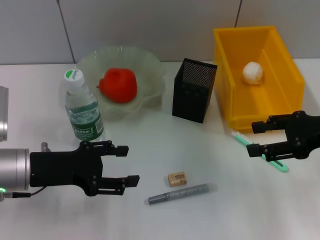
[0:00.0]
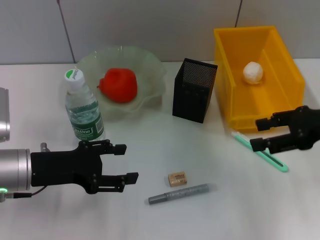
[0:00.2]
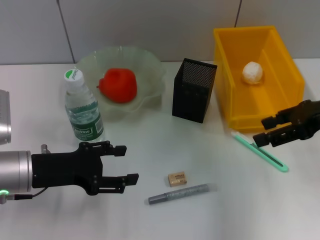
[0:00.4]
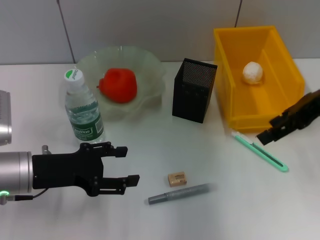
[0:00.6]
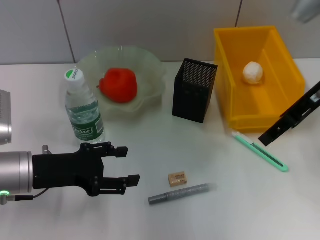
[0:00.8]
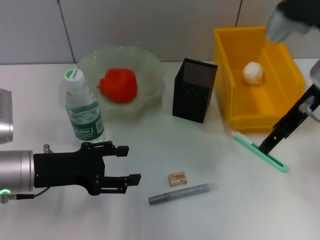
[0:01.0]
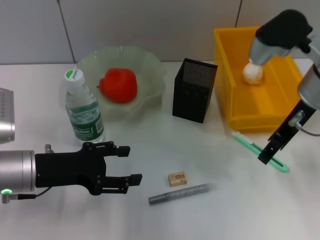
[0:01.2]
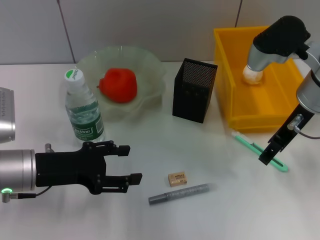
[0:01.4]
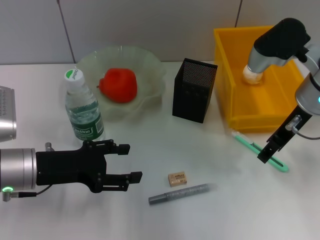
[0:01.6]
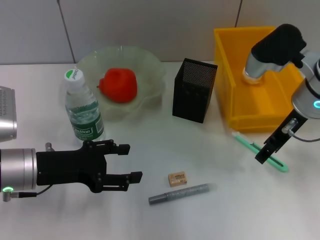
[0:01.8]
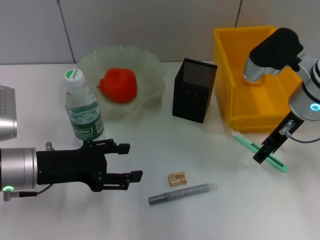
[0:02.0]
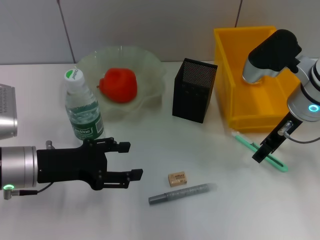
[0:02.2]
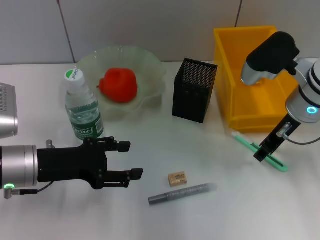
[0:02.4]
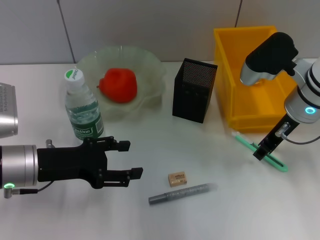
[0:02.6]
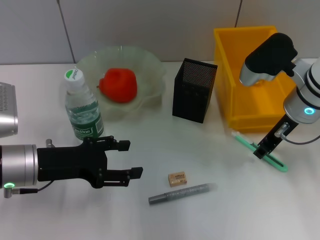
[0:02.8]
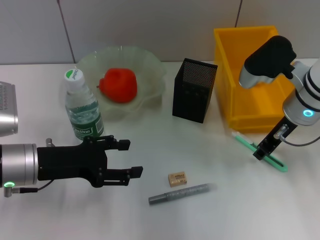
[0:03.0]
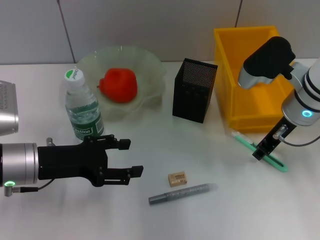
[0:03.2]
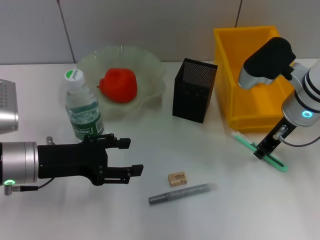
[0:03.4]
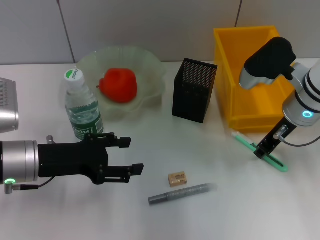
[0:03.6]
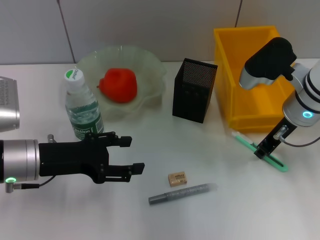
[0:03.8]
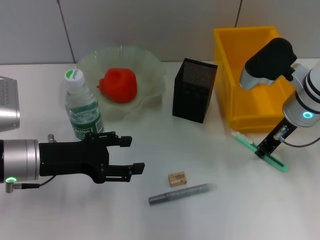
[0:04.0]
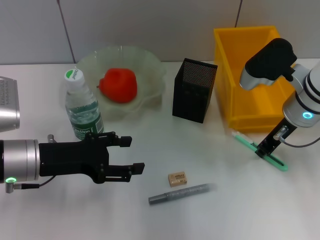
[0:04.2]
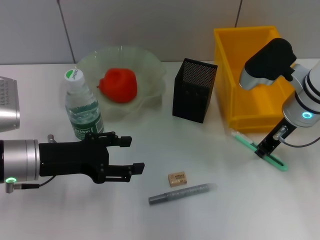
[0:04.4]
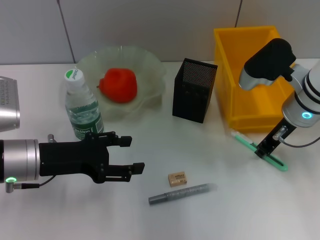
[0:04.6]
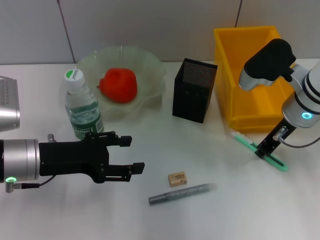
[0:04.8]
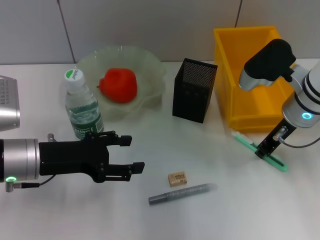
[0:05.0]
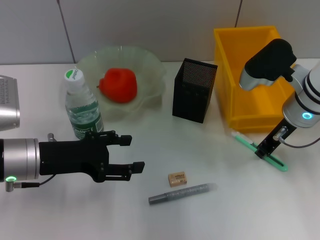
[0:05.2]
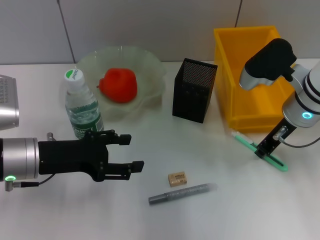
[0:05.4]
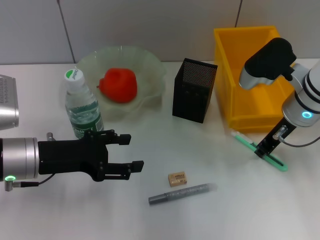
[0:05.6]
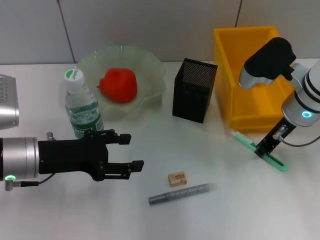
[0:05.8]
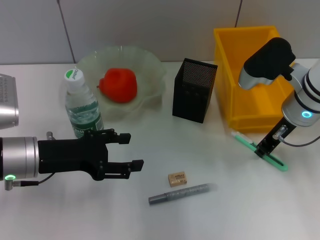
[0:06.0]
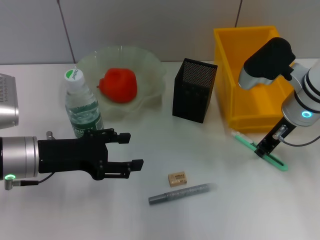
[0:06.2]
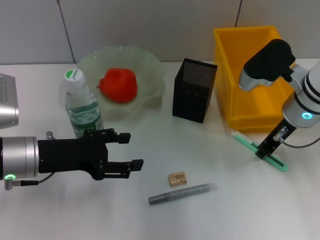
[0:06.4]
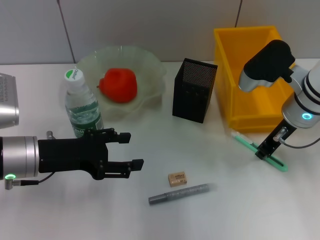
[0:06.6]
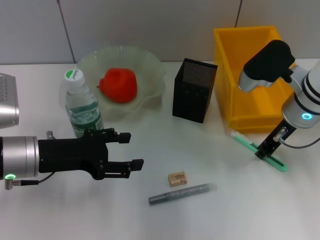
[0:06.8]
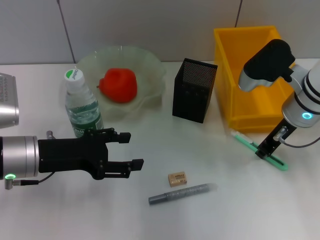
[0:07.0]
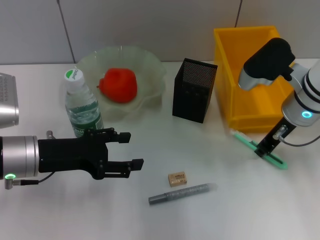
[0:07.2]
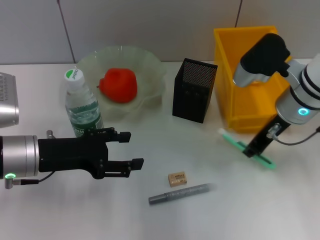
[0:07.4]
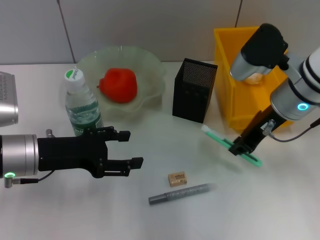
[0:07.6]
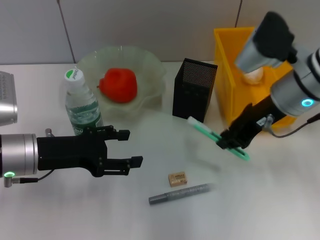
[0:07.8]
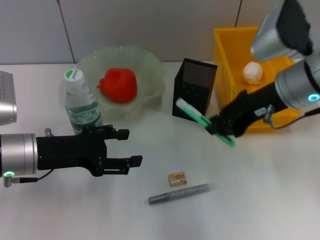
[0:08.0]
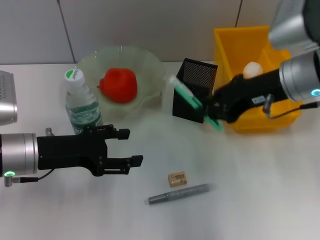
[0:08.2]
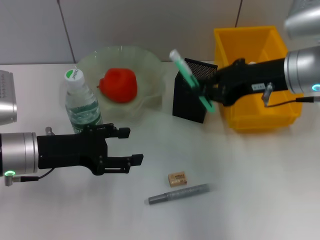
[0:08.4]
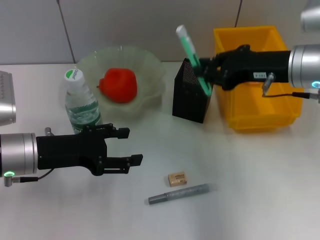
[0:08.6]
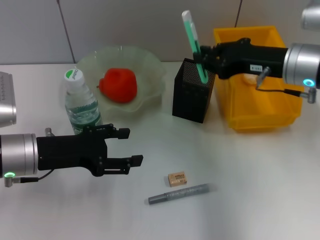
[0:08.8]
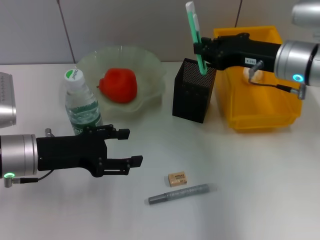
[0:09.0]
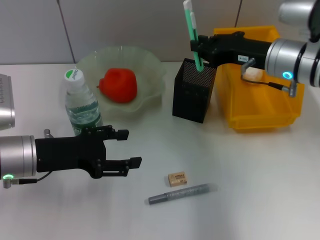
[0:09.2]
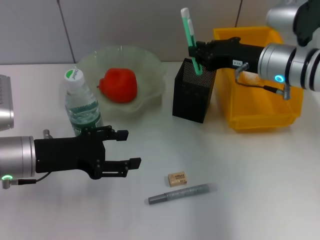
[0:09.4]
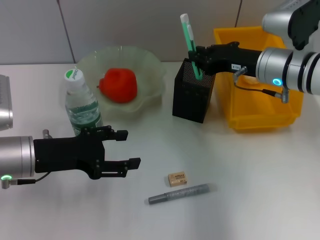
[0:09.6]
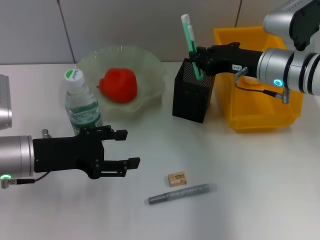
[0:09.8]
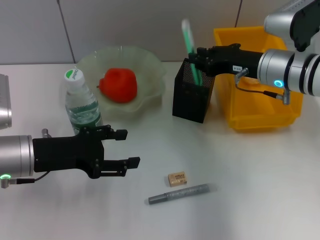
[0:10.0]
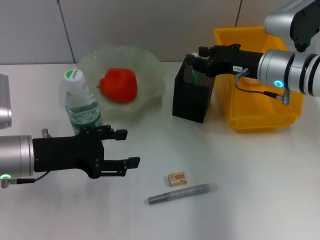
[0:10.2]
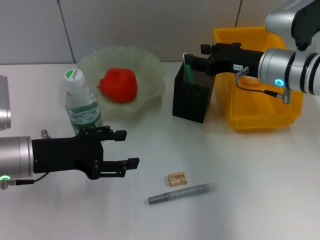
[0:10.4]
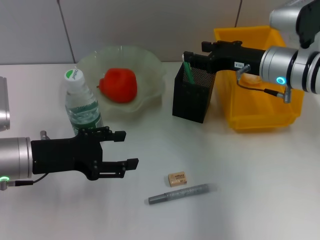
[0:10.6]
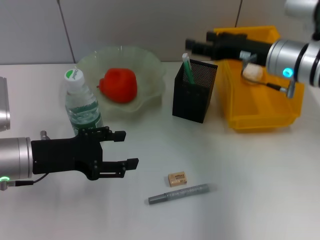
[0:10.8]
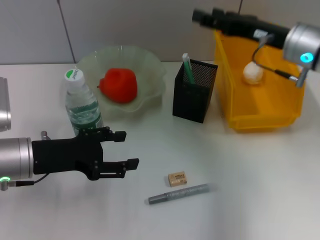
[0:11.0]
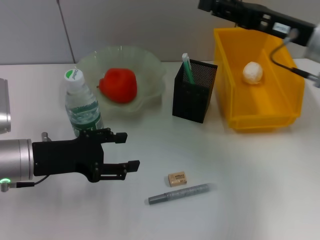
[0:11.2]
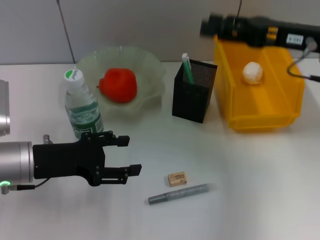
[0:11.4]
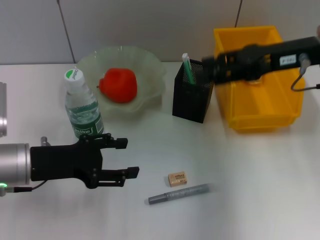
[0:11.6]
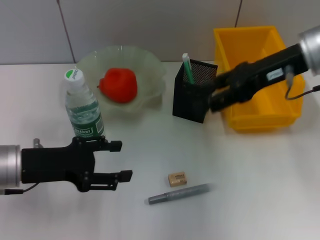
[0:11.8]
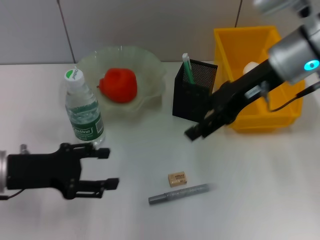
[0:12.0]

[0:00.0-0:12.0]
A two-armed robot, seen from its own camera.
Step, 0:00.0 to 0:06.8: Grab the blue utility knife with the right hand.
Step, 0:07.0 to 0:10.2: Place the blue utility knife into the pen holder with the right hand.
0:00.0 to 0:01.6: The right gripper goes some 10 cm to the left and forward.
0:01.6 to 0:03.0: The right gripper closes its fingers.
0:03.0 to 0:06.0: Both grippers stay put.
0:06.0 to 0:07.6: The grippers stay close to where they were, moving slightly.
0:09.0 to 0:10.4: The right gripper opens.
0:10.4 to 0:12.0: The right gripper travels upward by approximately 10 cm, and opens up.

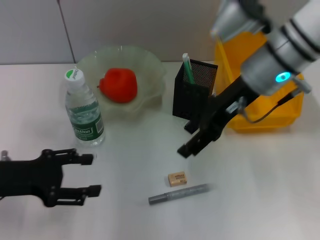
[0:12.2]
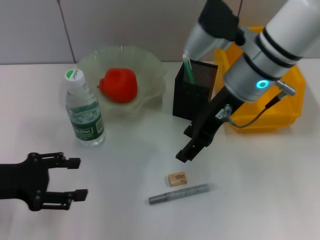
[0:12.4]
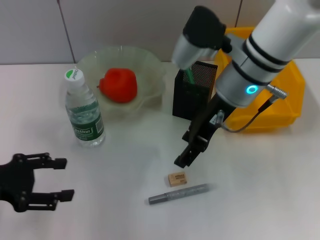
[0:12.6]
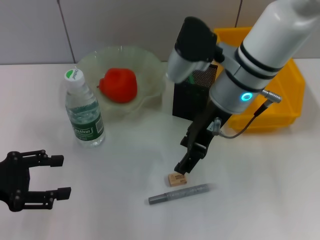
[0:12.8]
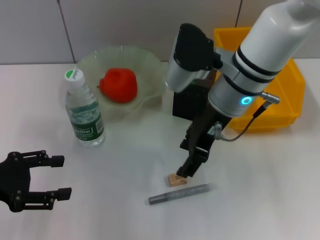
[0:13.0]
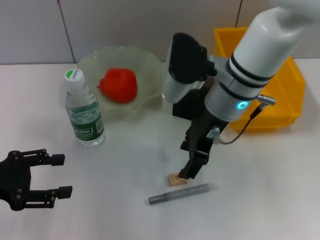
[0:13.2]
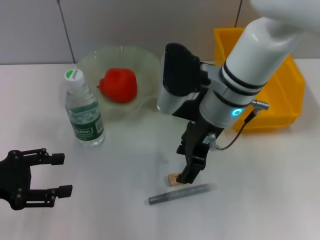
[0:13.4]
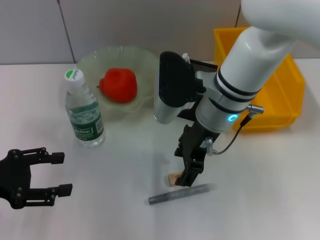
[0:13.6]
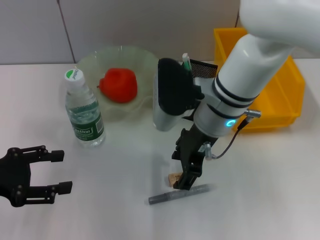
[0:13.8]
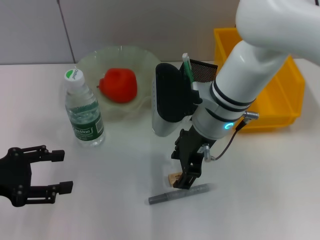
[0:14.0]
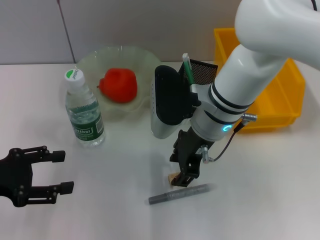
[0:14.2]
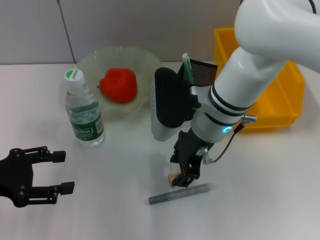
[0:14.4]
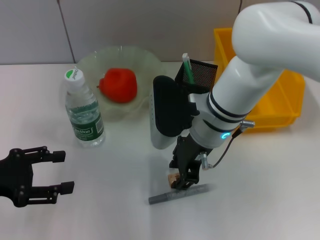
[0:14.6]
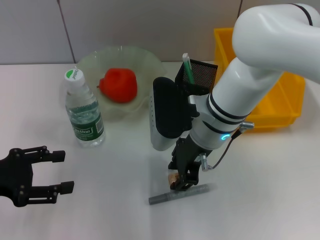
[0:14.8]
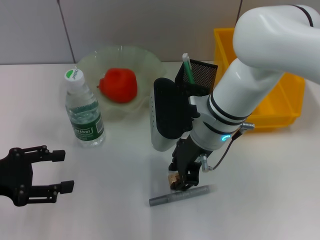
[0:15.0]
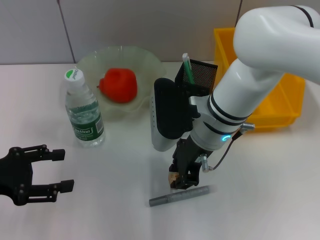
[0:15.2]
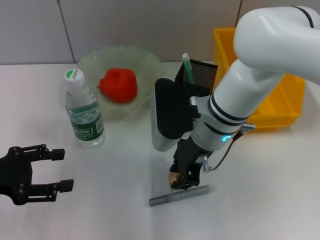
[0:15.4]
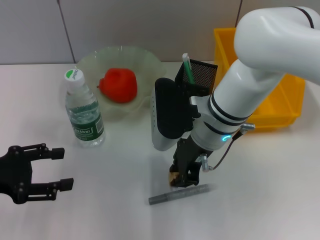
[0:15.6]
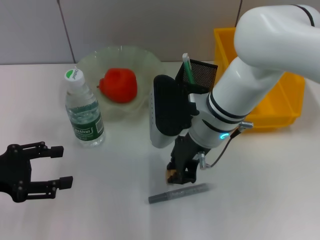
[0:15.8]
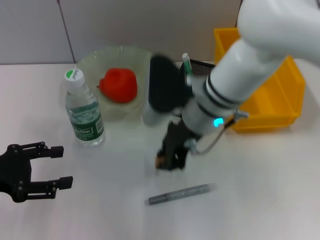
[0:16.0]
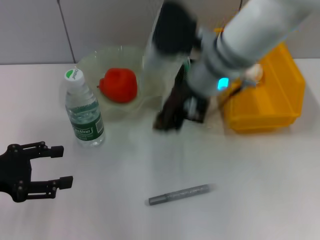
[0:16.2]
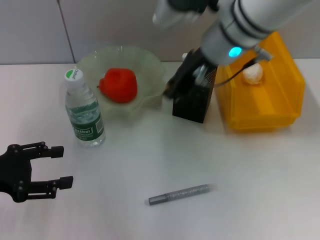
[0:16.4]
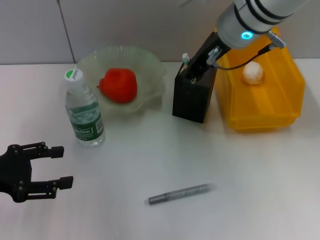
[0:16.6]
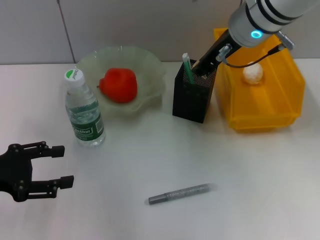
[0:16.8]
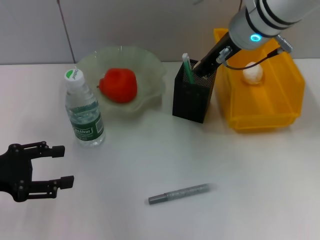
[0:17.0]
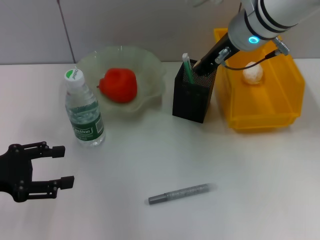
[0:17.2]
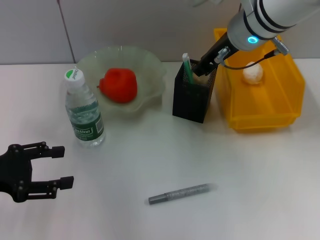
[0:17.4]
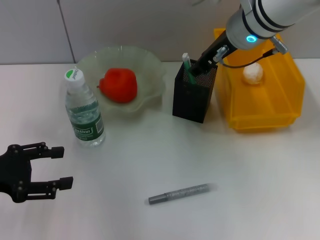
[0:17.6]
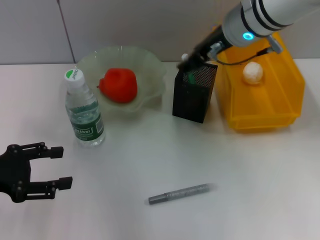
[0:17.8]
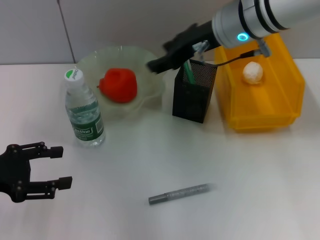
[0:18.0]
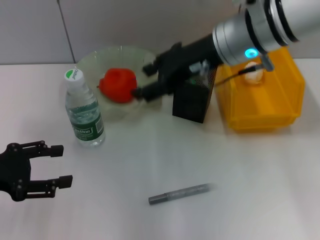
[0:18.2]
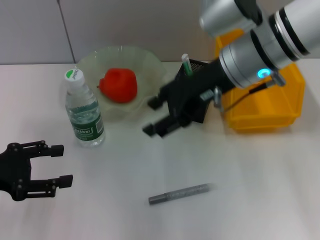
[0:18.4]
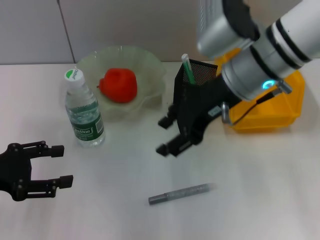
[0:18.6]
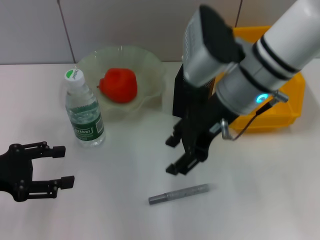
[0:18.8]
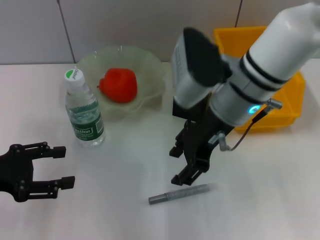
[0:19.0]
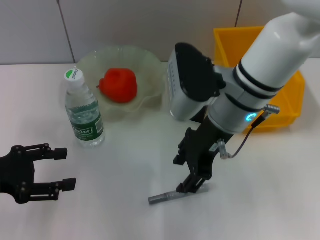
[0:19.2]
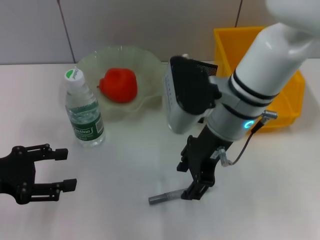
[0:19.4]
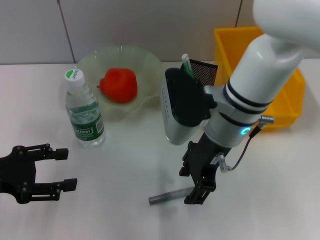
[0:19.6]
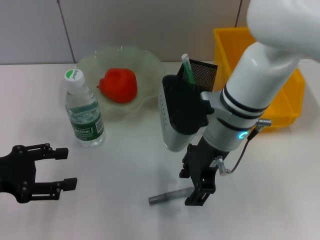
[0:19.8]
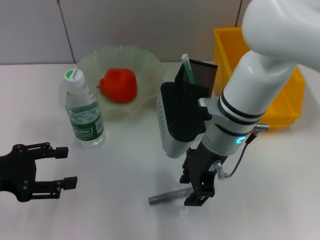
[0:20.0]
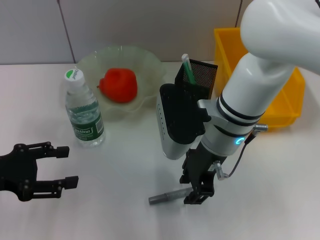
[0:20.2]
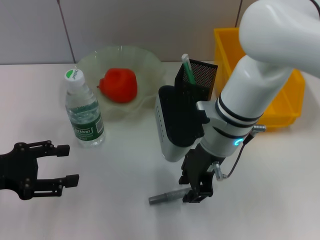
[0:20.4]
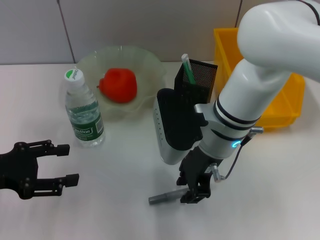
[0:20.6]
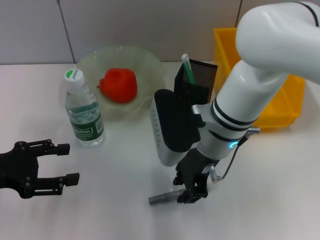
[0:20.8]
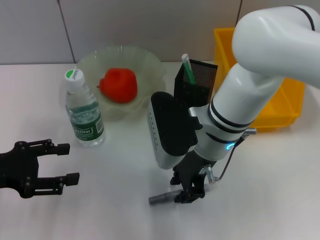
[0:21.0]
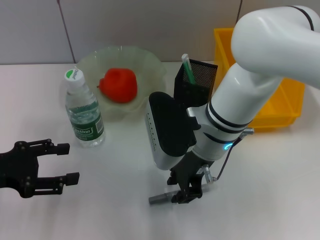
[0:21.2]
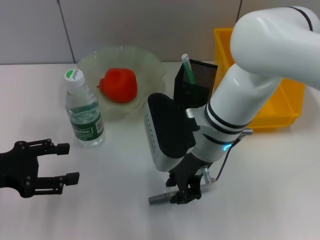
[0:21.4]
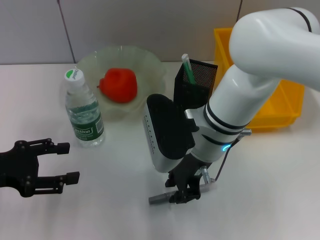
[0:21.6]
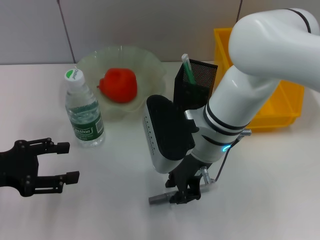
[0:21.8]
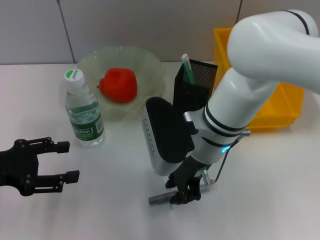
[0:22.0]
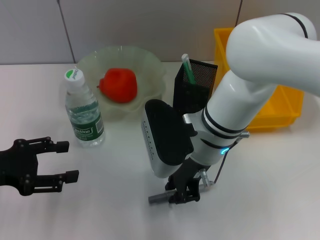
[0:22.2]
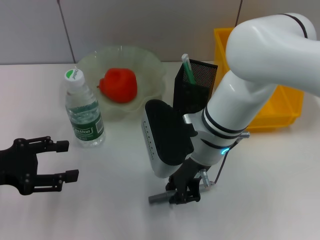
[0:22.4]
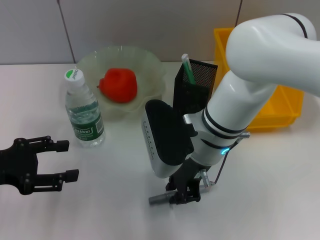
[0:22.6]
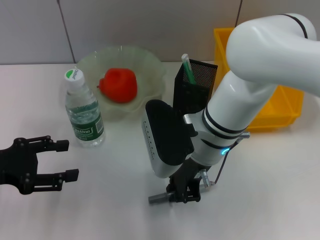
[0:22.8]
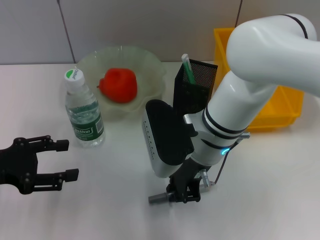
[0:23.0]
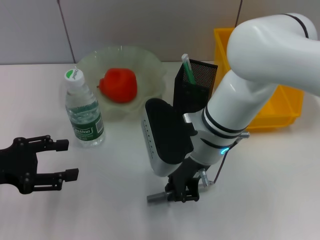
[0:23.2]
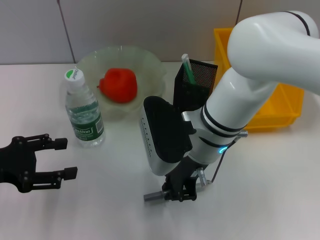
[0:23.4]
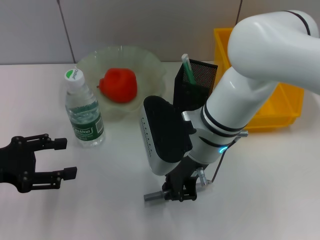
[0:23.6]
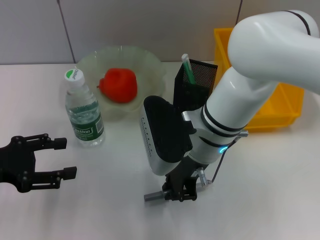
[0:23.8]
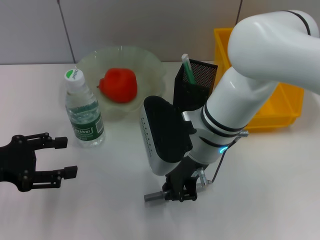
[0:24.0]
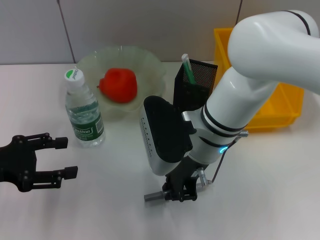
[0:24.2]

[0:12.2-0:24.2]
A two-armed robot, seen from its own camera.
Step, 0:12.2 to 0:15.4: Grab the eraser with the right hand.
Step, 0:15.6 to 0:17.4: Put the eraser into the pen holder with the right hand.
Step, 0:17.6 to 0:23.0: Grab the gray glue with the right hand.
0:12.2 to 0:13.8: The right gripper travels to the left and downward by some 10 cm.
0:13.8 to 0:15.2: The right gripper closes.
0:15.2 to 0:16.6: The right gripper heads upward and forward, covering approximately 15 cm.
0:16.6 to 0:18.2: The right gripper opens its fingers.
0:18.2 to 0:19.8: The right gripper goes approximately 10 cm downward.
0:19.8 to 0:21.2: The right gripper closes up.
0:21.2 to 0:24.2: The two grippers keep their place.
